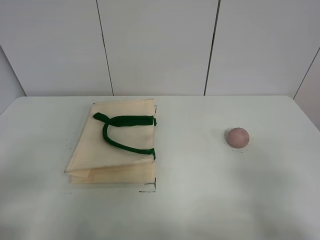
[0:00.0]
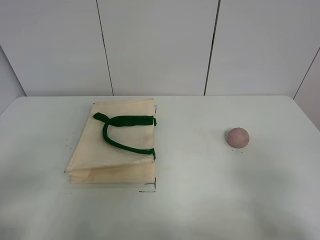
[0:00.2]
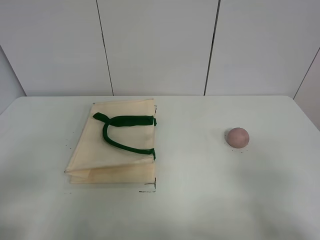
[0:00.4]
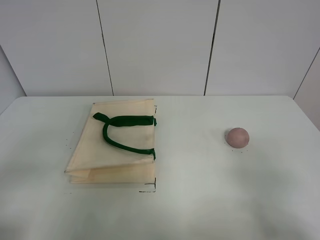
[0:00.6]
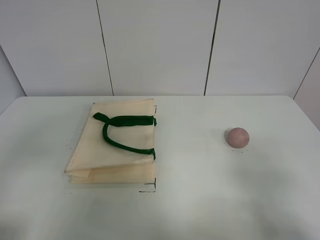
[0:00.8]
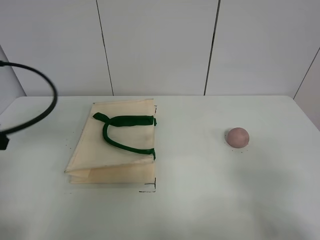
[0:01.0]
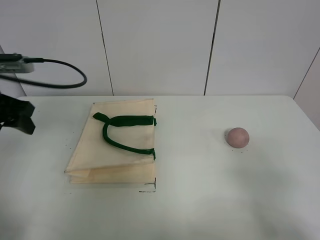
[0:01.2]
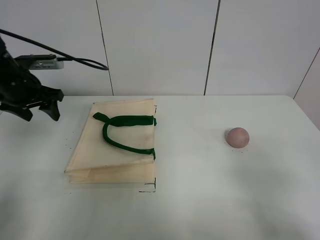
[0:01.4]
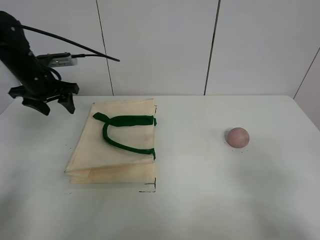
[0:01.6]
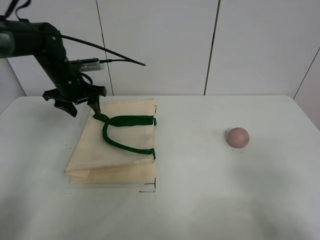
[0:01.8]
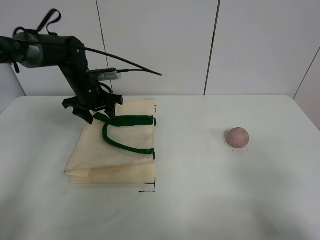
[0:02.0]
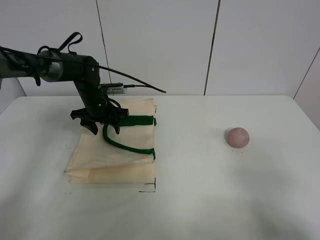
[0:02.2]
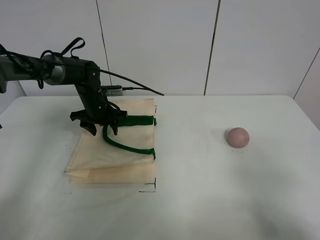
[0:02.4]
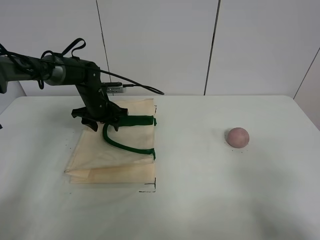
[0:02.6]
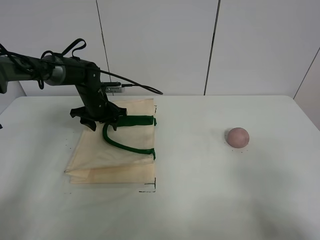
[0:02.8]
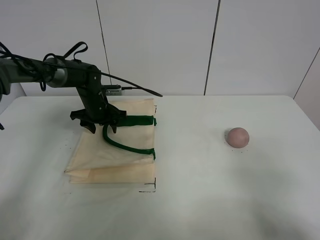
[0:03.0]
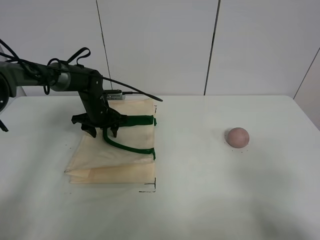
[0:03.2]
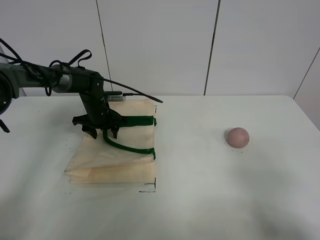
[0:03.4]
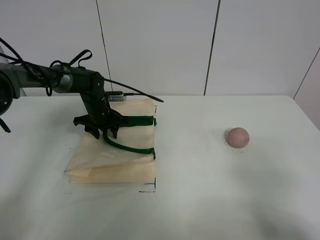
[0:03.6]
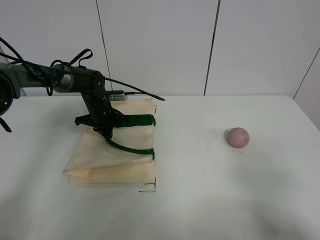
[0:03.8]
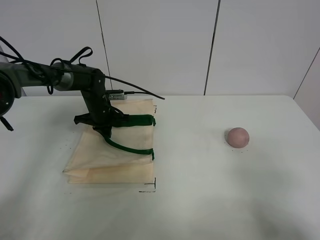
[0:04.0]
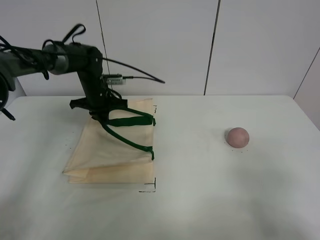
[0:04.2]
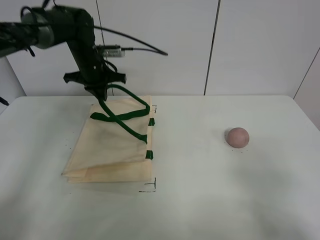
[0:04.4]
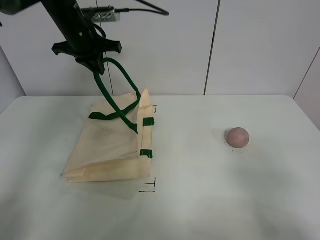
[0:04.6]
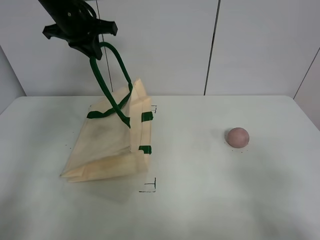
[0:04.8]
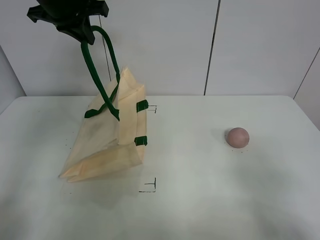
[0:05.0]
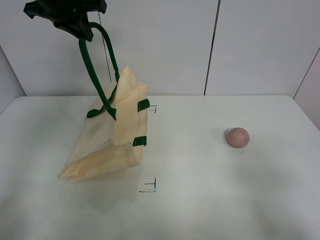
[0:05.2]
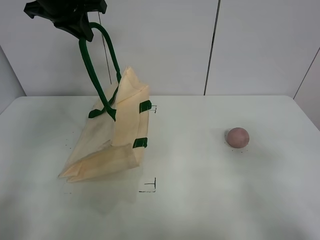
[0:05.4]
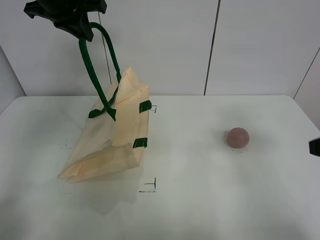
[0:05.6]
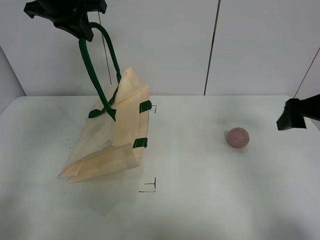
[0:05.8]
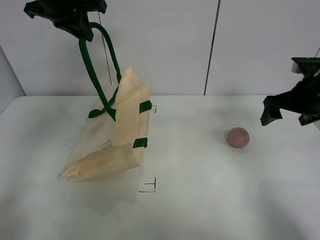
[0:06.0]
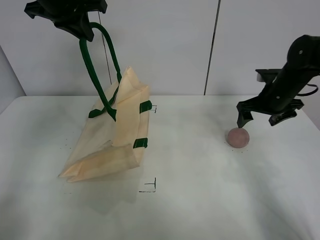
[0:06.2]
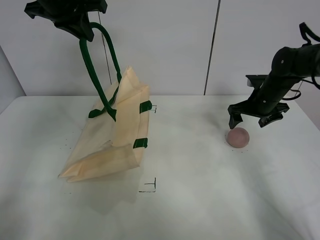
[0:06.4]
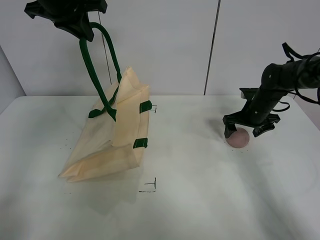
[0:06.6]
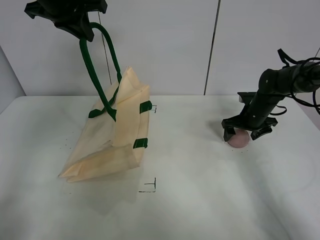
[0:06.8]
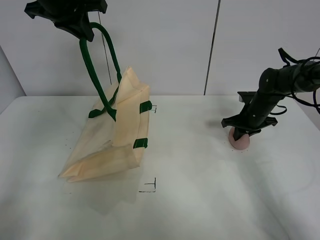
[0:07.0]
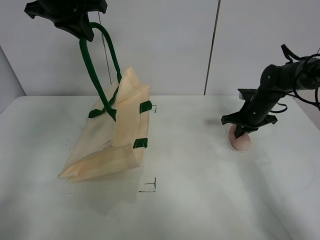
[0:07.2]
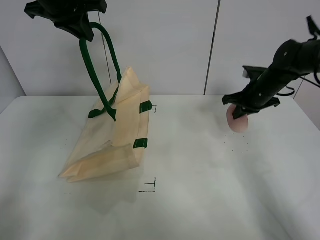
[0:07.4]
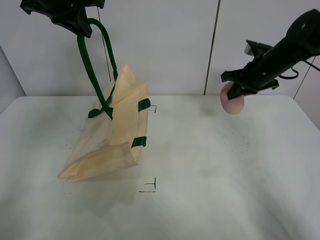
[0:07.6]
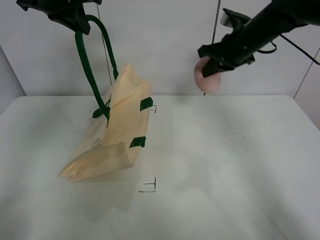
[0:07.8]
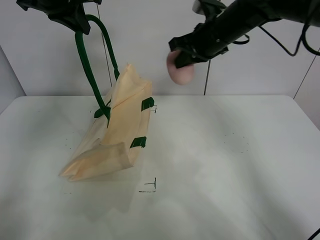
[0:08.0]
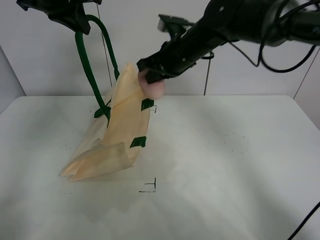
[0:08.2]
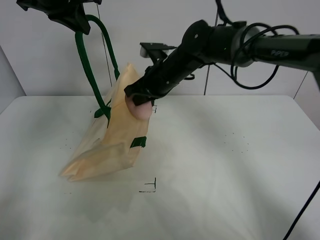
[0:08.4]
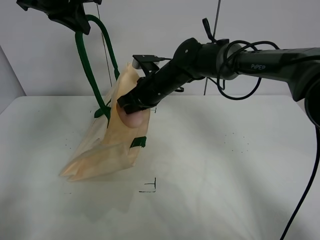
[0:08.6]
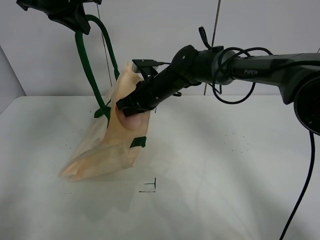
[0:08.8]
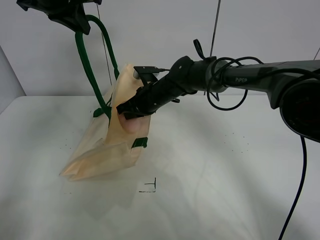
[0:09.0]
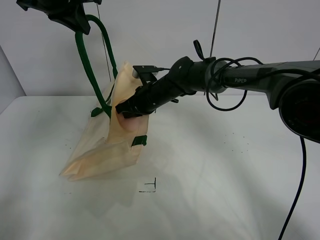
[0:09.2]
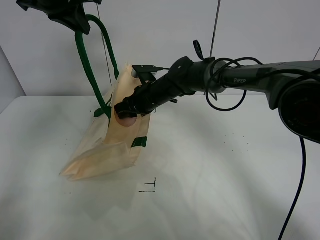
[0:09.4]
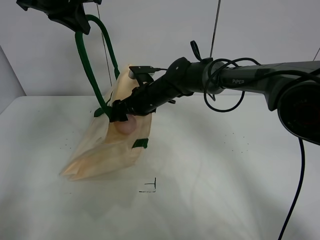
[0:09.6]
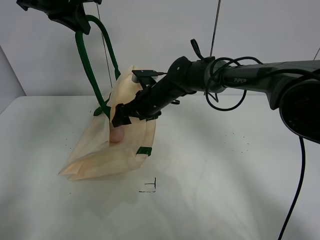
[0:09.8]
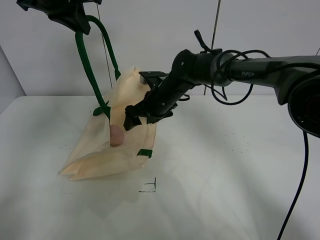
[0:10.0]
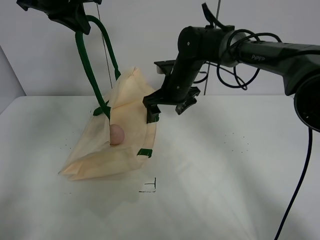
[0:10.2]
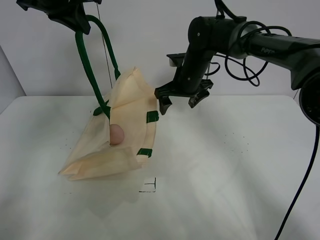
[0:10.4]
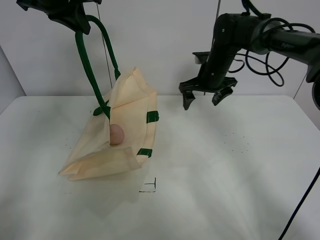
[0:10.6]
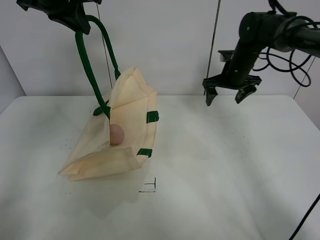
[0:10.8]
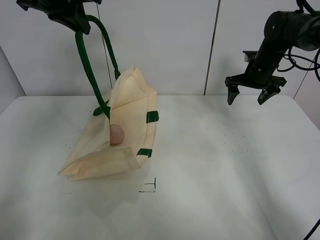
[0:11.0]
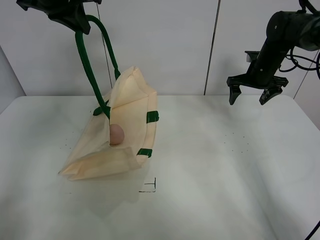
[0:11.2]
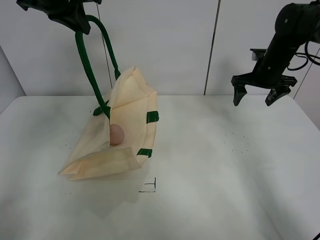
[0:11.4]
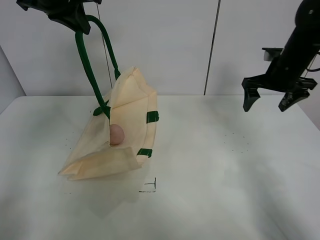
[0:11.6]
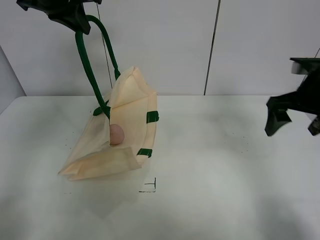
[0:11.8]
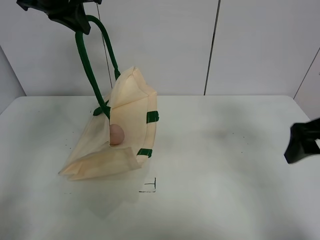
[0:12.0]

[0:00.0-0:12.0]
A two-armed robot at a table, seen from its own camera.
Task of the whole recording: open the white linen bag and put the peach in the bag.
Step, 0:00.0 to 0:05.2: Lift the handbag with left gripper.
Step, 0:05.4 to 0:07.2: Grasp the peach with right gripper.
Step, 0:07.4 to 0:09.6: Place the peach in the handbag with right gripper.
0:01.6 to 0:03.0: The left gripper moves downward, to the right and forward, about 20 cm.
0:03.0 to 0:04.4: The left gripper goes approximately 5 cm upward, and closes up.
0:04.4 to 0:06.0: The left gripper shifts about 20 cm upward. Meanwhile the right gripper goes approximately 30 cm forward.
0:06.0 to 0:07.6: The right gripper is displaced forward by about 15 cm, moves about 15 cm downward and comes back, and closes its fingers.
0:07.6 to 0:09.0: The right gripper shifts some 25 cm to the left.
0:09.0 to 0:10.4: The right gripper goes about 5 cm to the right, and opens its fingers.
0:10.4 to 0:12.0: The right gripper heads to the right and backward, covering some 30 cm.

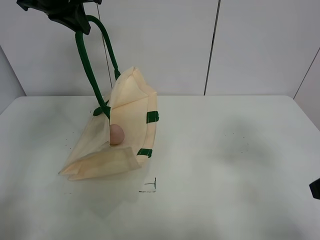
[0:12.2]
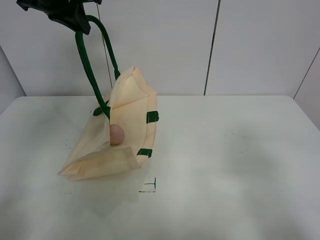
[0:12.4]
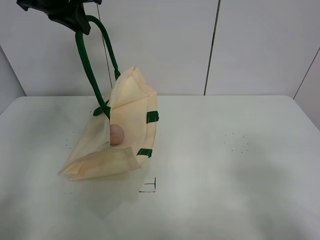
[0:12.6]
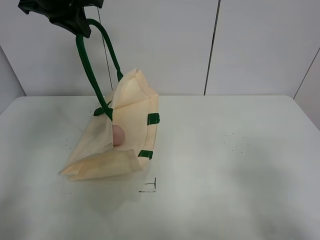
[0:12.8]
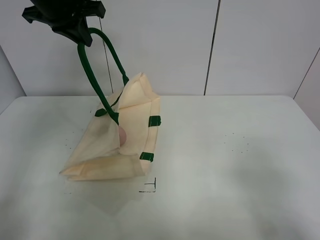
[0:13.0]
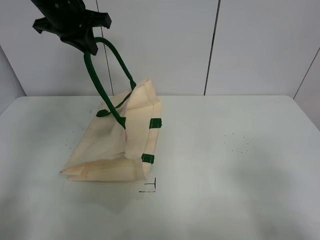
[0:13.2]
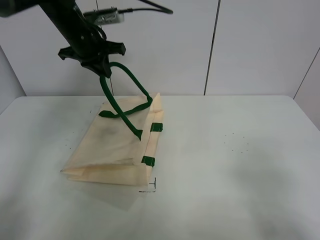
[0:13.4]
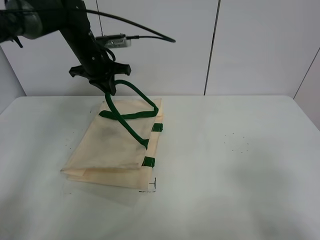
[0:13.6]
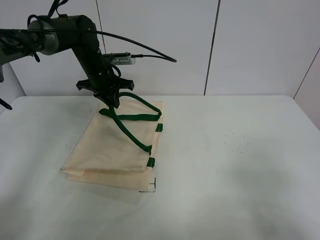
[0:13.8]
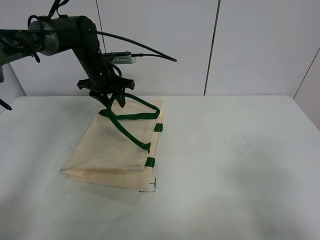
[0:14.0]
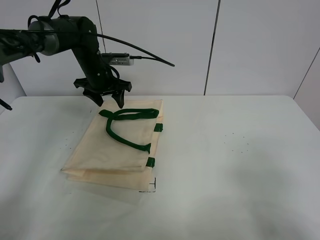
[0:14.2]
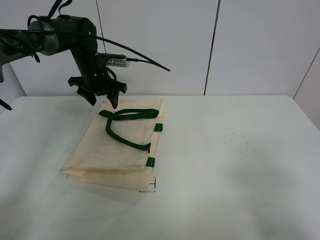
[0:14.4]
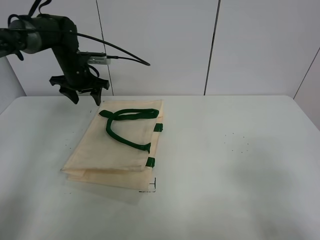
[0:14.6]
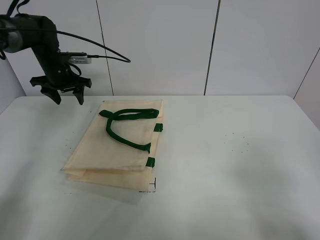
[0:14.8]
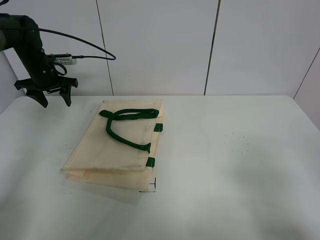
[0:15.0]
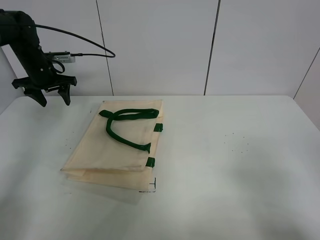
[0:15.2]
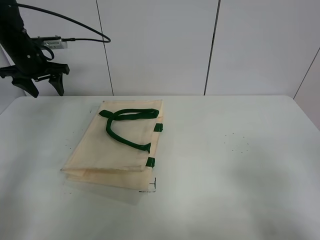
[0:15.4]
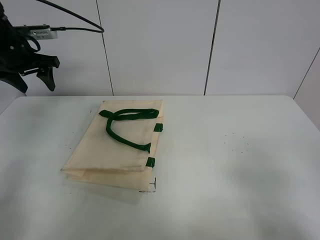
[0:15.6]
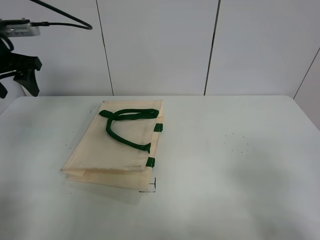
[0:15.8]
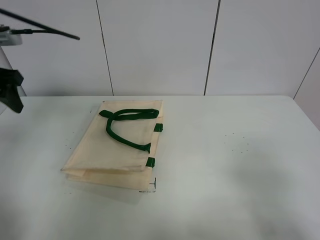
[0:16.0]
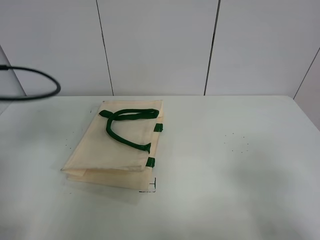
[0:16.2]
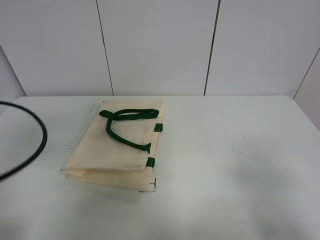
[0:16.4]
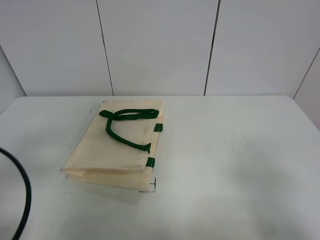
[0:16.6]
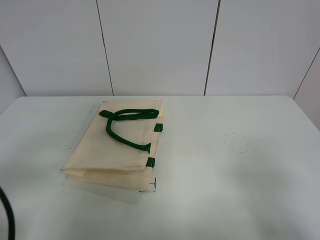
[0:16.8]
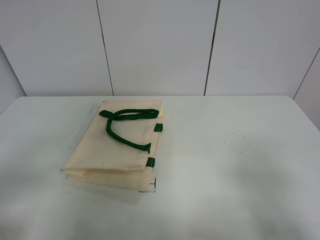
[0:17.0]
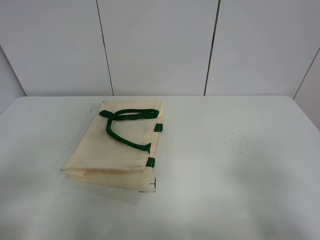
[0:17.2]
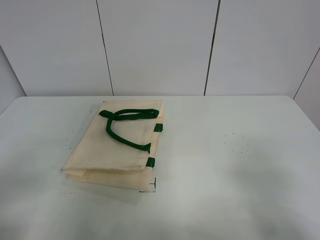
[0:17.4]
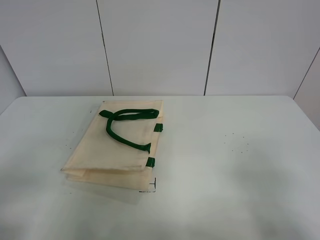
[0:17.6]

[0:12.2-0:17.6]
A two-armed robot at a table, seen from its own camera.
Task of the whole recording: open the white linen bag and put the peach in the bag.
Step, 0:12.2 to 0:14.2: Put down the handbag with left gripper.
0:12.2 to 0:13.6: The left gripper shifts some 15 cm downward and forward. Meanwhile the right gripper travels backward by roughly 15 cm.
0:13.6 to 0:15.0: The left gripper travels to the left and downward by roughly 15 cm, and opens.
0:15.0 to 0:16.2: The left gripper moves backward, about 25 cm.
0:16.2 to 0:17.6: The left gripper is displaced backward by approximately 20 cm.
